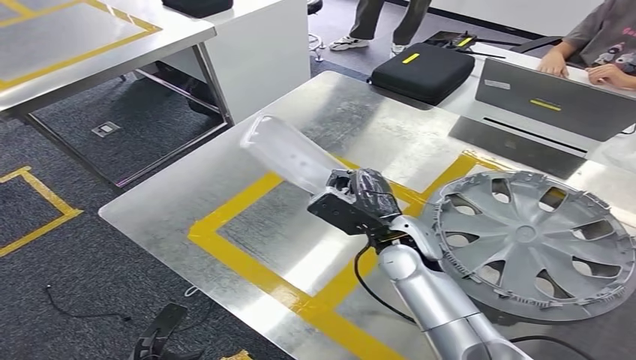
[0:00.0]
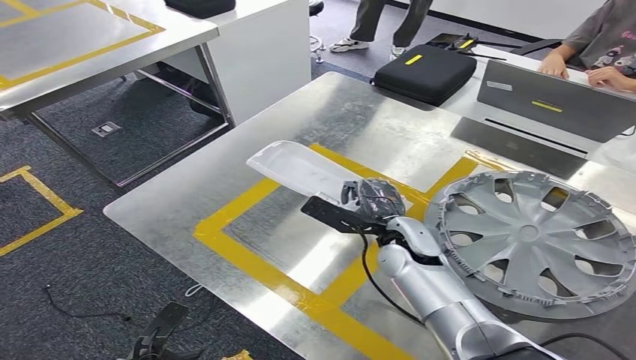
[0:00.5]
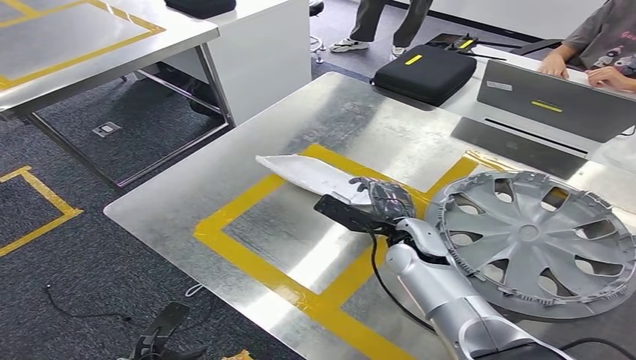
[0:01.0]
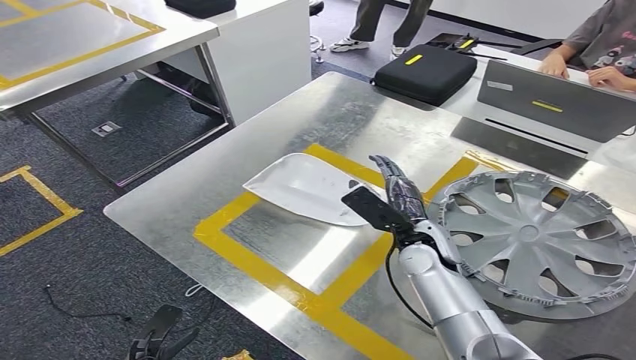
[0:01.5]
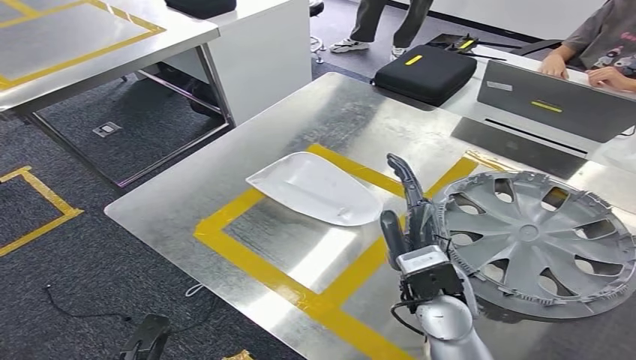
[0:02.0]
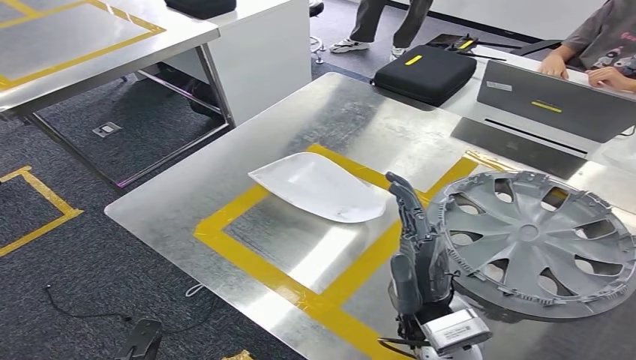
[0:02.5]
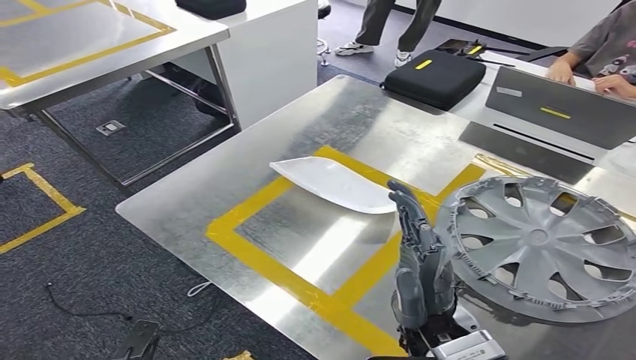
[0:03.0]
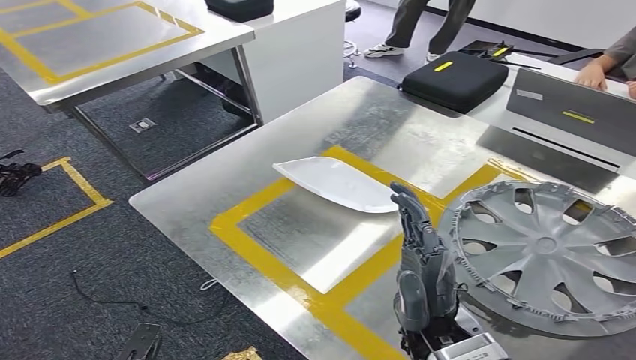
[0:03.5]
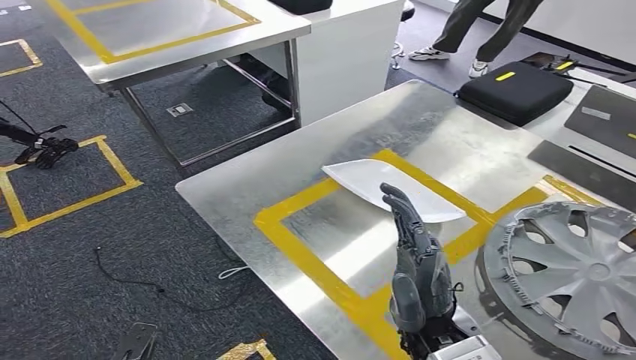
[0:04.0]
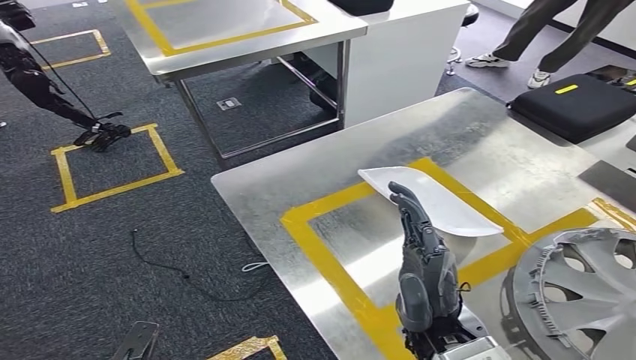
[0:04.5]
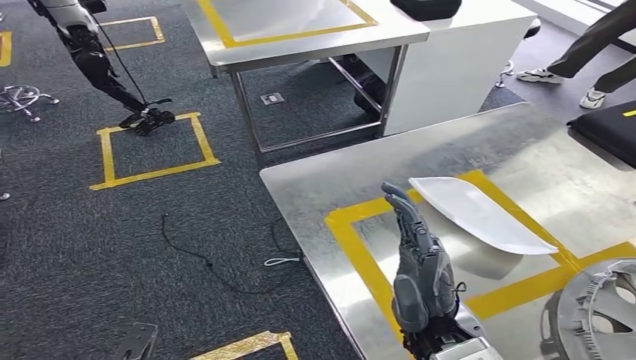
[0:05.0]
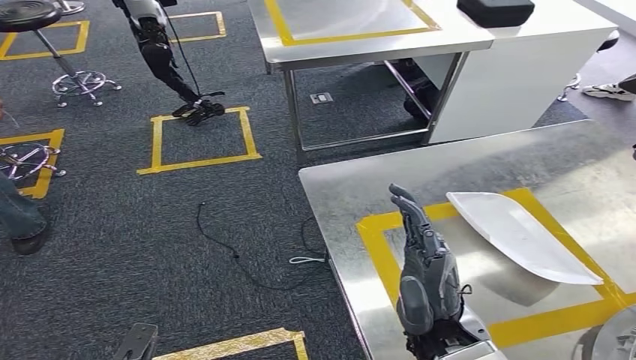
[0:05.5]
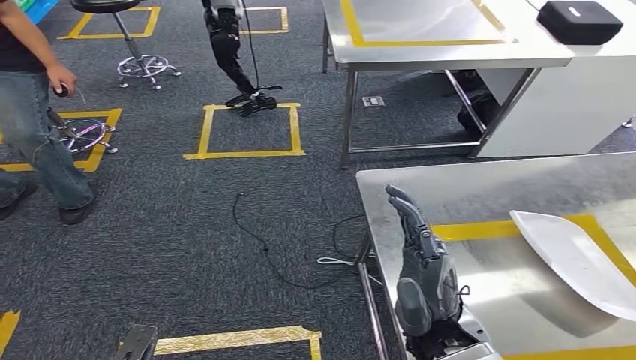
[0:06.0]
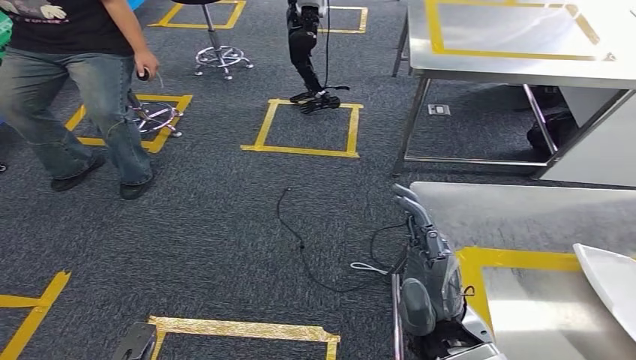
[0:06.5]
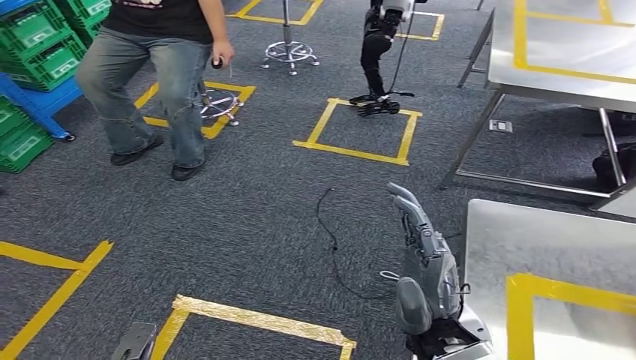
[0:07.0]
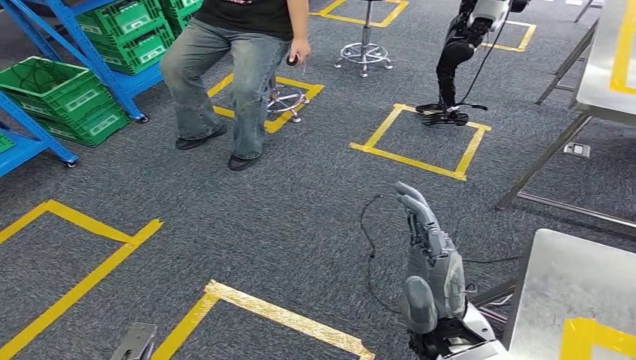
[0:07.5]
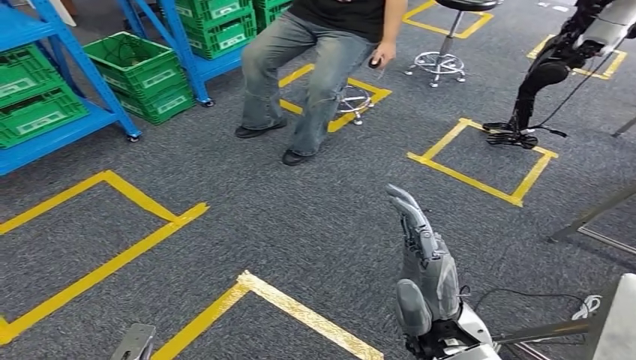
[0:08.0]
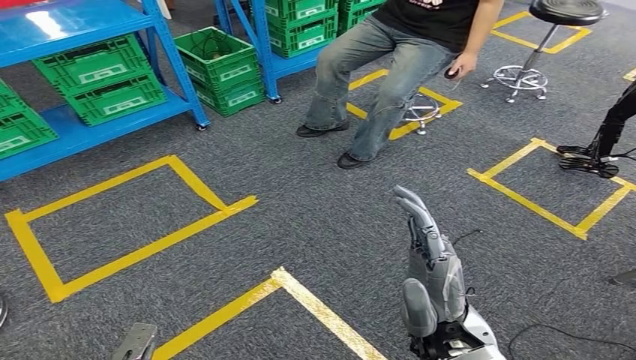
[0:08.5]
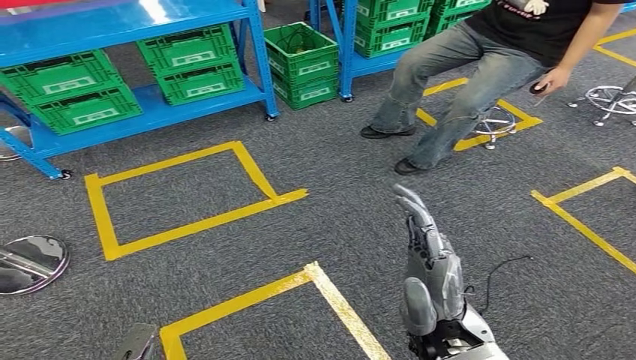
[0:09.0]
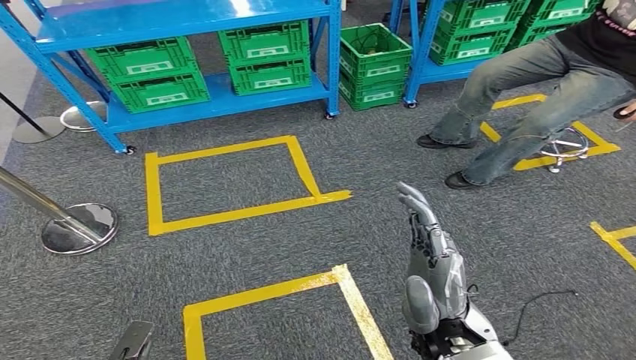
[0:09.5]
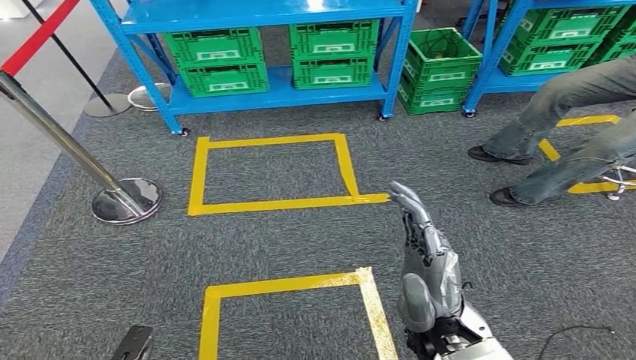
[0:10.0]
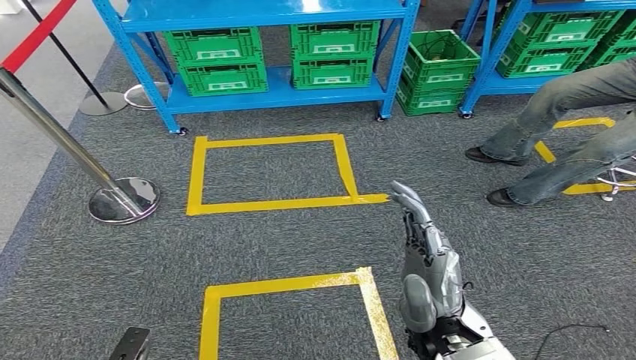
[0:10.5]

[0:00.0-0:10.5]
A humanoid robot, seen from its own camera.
Step, 0:00.0 to 0:02.5: Insert the small component into the corresponding slot on the workbench.
0:00.0 to 0:02.0: The right hand heads backward, covering some 10 cm.

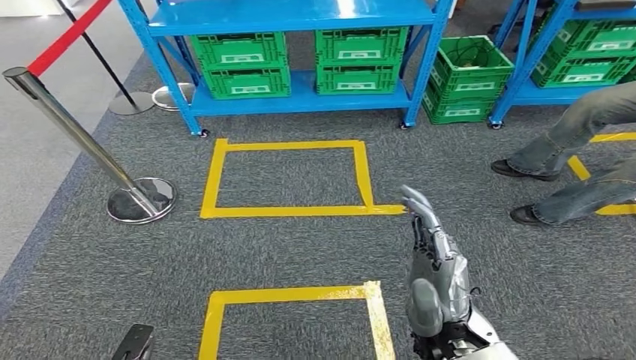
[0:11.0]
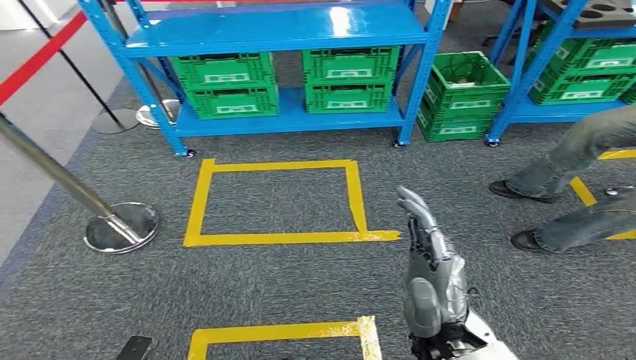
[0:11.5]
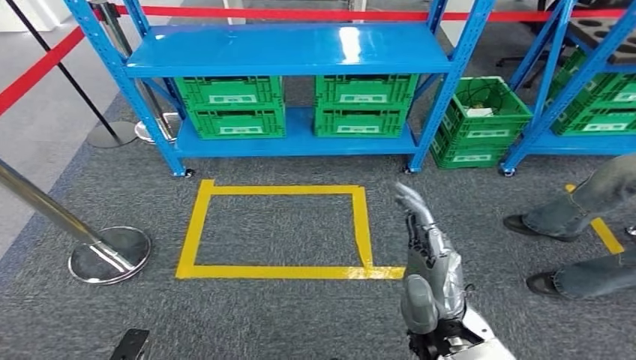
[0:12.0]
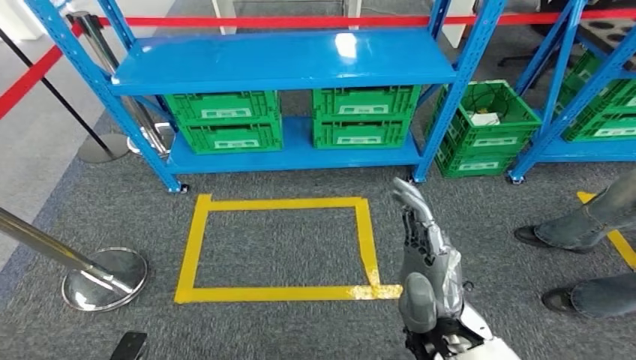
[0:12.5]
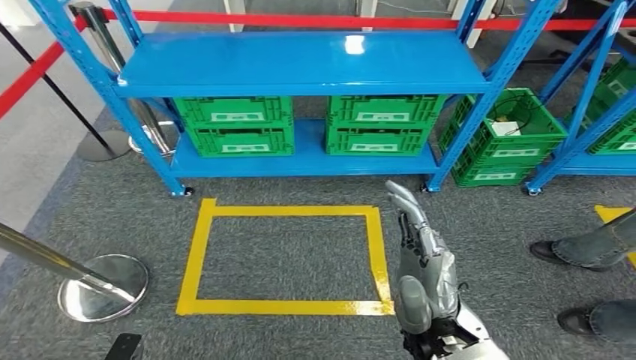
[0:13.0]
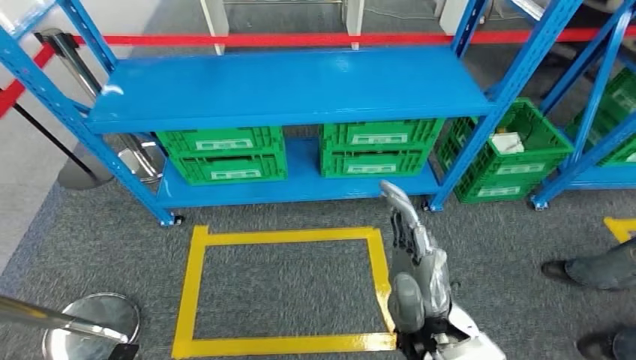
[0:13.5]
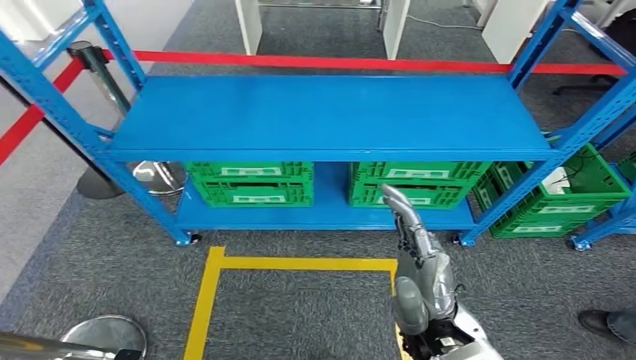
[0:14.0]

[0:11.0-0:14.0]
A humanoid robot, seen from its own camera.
Step, 0:11.0 to 0:14.0: Return to the initial position at the workbench.
